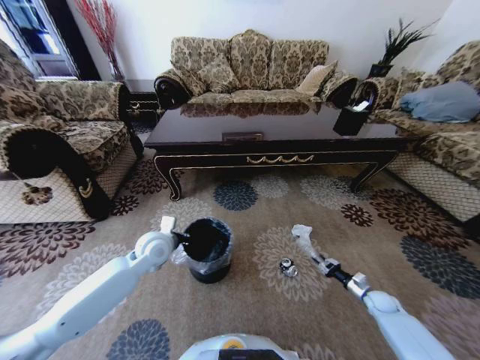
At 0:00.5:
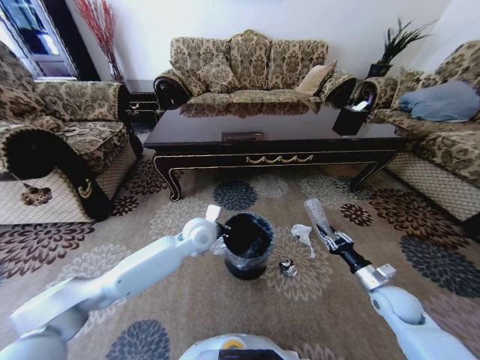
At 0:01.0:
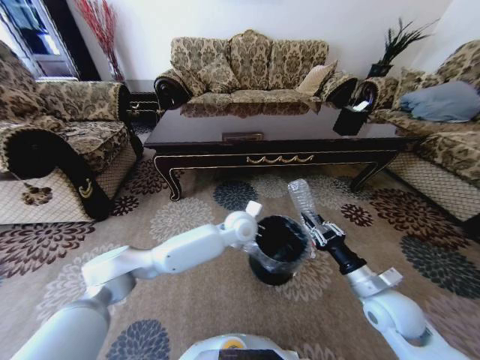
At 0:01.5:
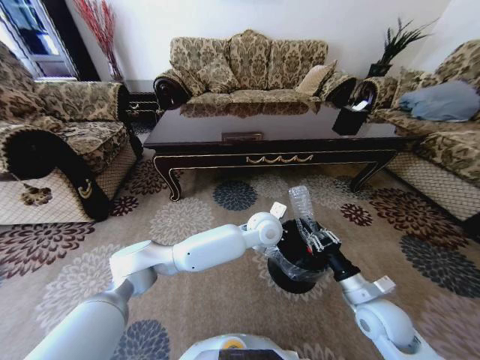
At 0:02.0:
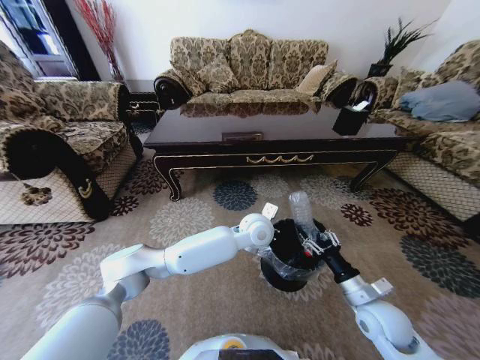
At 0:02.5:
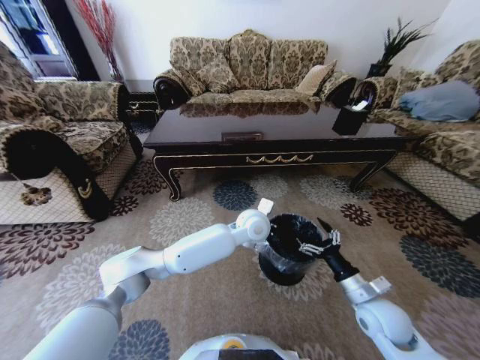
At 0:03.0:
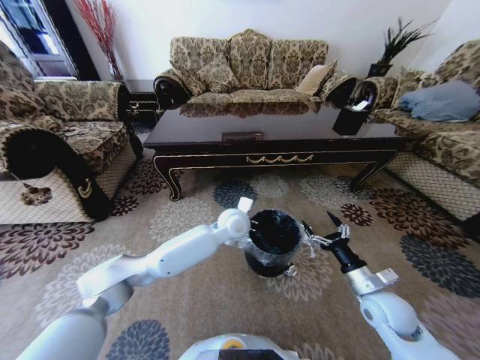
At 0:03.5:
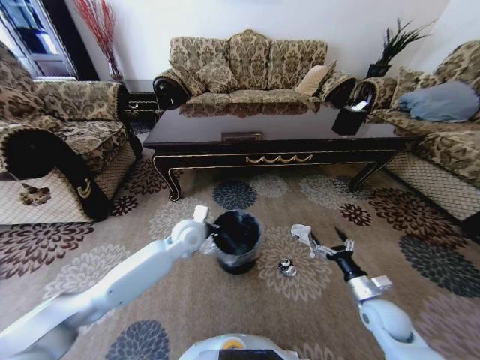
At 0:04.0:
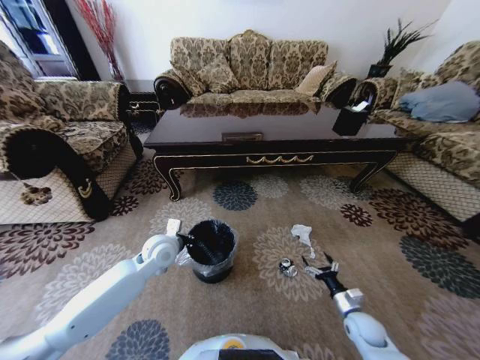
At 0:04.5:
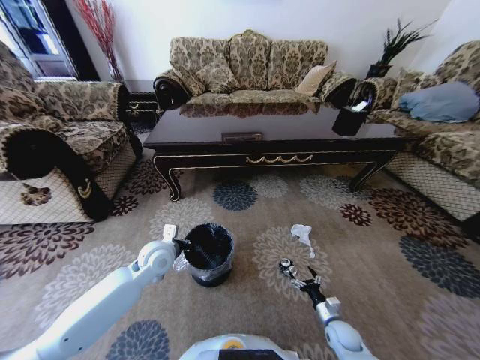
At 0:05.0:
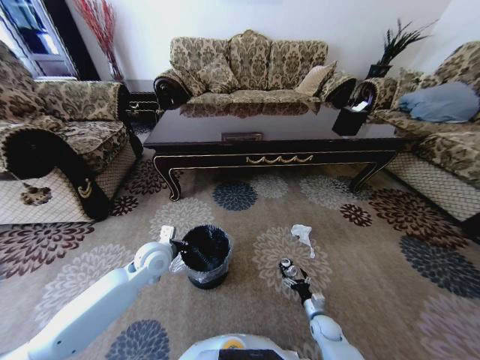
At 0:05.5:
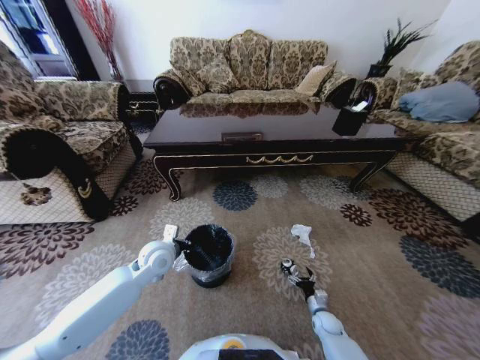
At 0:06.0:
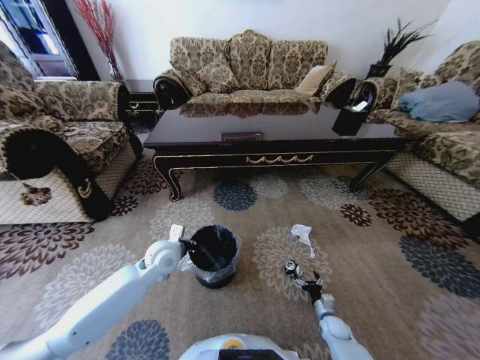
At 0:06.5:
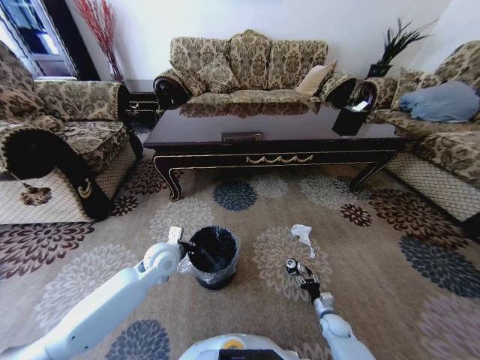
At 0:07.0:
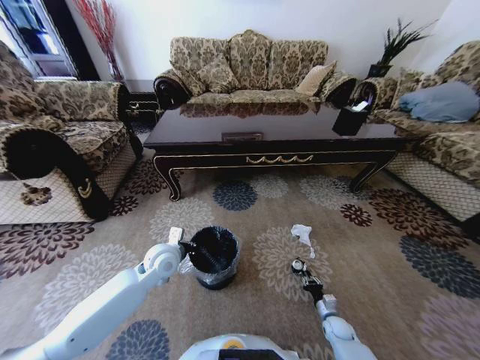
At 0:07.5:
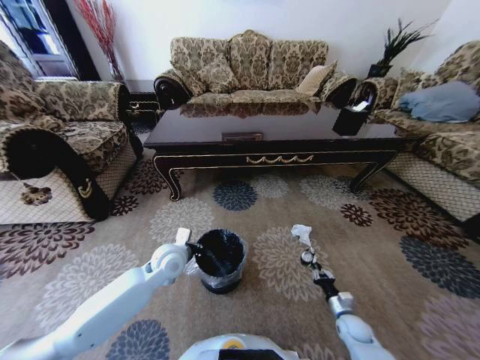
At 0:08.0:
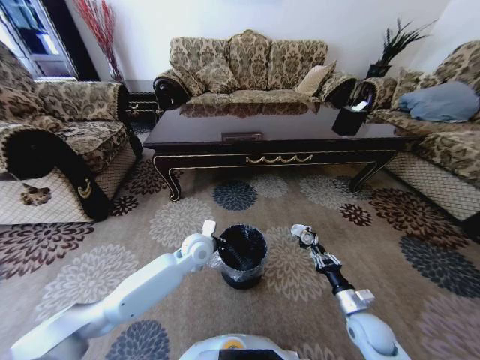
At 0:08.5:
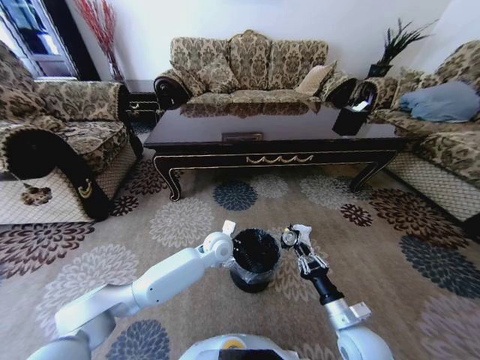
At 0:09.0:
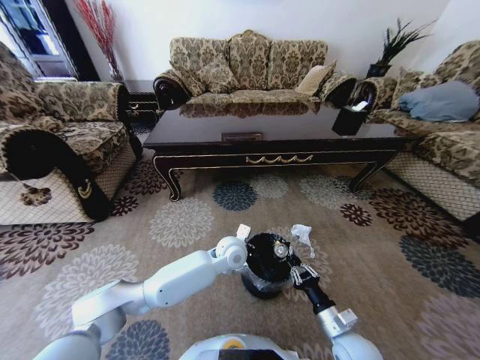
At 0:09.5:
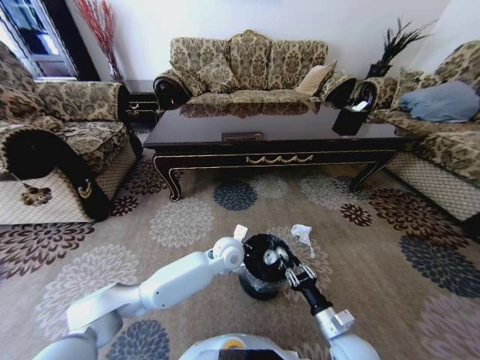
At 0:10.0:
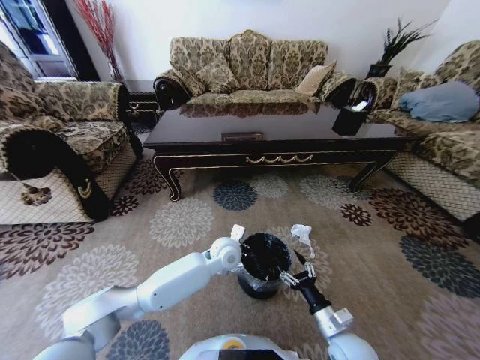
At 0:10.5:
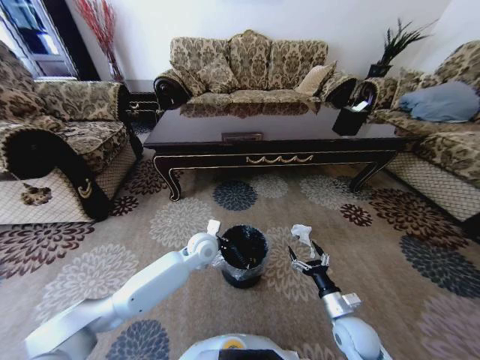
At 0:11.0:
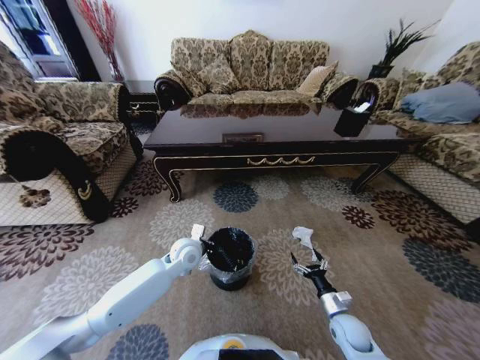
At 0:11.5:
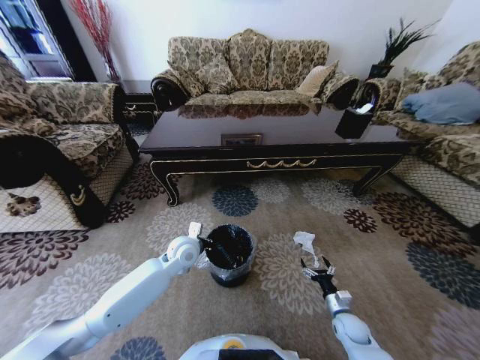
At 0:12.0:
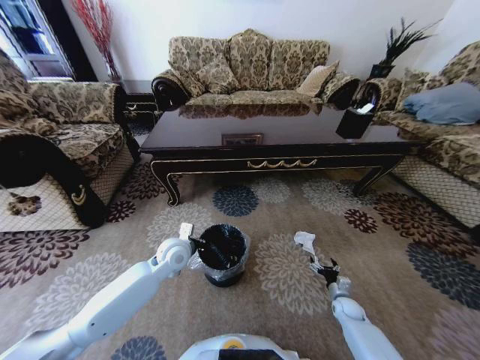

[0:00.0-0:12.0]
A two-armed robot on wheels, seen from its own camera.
Task of the whole recording: Move to the front of the table and pick up the trash from the floor, then place it into the trash bin.
0:00.0 to 0:02.0: The right gripper is displaced upward, to the left and backward by roughly 30 cm, and opens, while the left gripper travels to the right by roughly 30 cm.
0:02.0 to 0:04.0: The right gripper shifts about 15 cm downward, and opens its fingers, while the left gripper heads to the left, covering some 25 cm.
0:04.0 to 0:06.0: The right gripper goes some 15 cm downward.
0:06.0 to 0:08.0: The right gripper travels upward by some 20 cm, and closes its fingers. Meanwhile the left gripper travels to the right by approximately 10 cm.
0:08.0 to 0:10.0: The left gripper moves to the right, roughly 10 cm. The right gripper is displaced to the left by approximately 10 cm, and opens up.
0:10.0 to 0:12.0: The right gripper travels downward, to the right and forward by approximately 25 cm; the left gripper travels to the left by approximately 15 cm.

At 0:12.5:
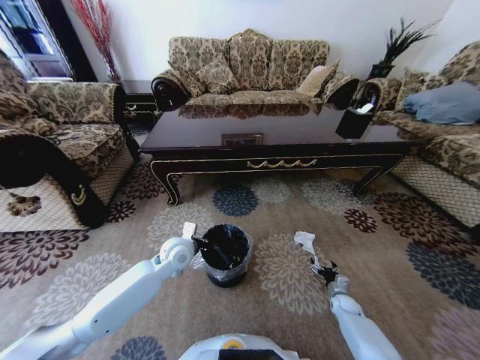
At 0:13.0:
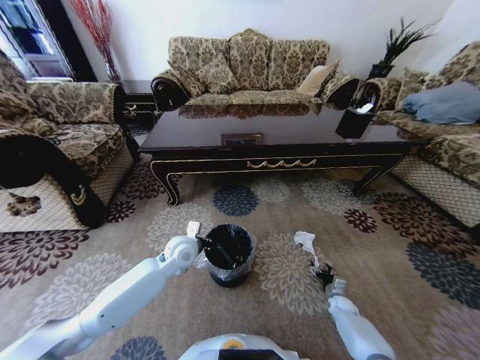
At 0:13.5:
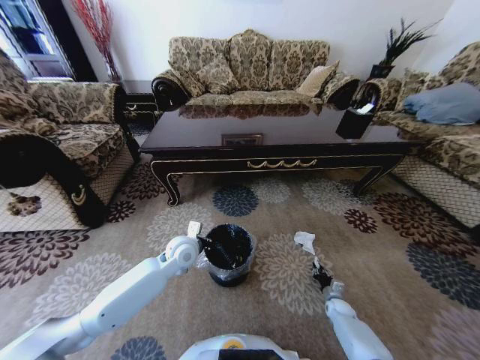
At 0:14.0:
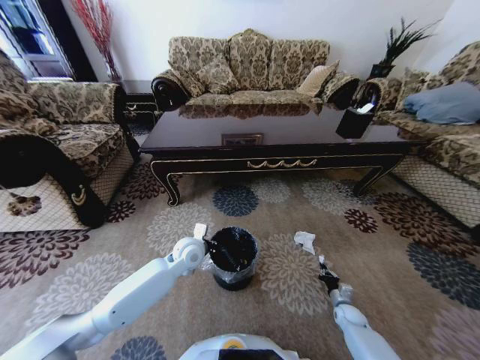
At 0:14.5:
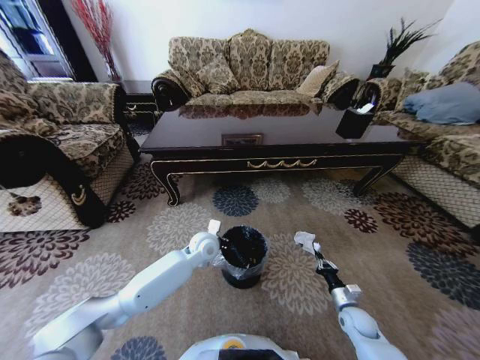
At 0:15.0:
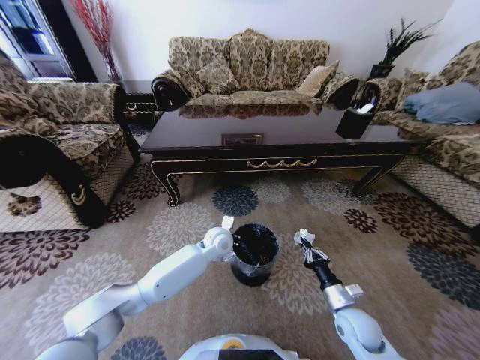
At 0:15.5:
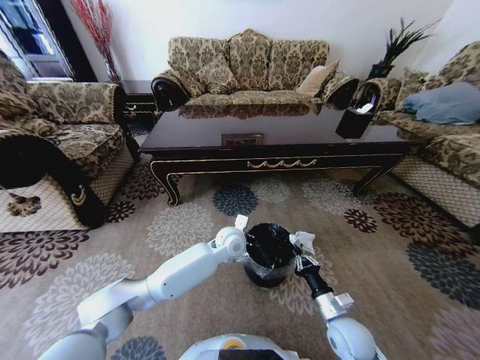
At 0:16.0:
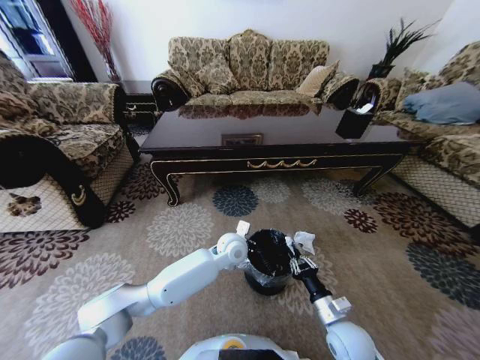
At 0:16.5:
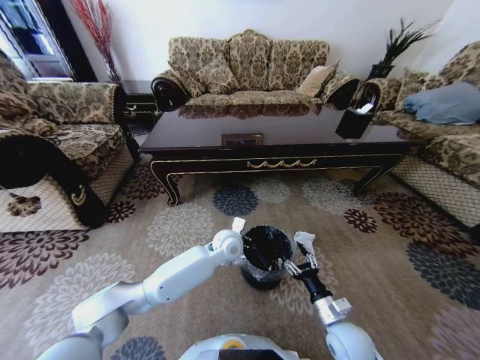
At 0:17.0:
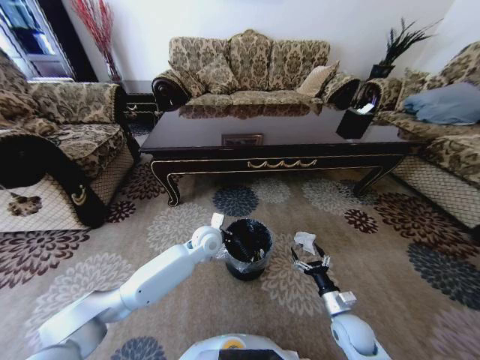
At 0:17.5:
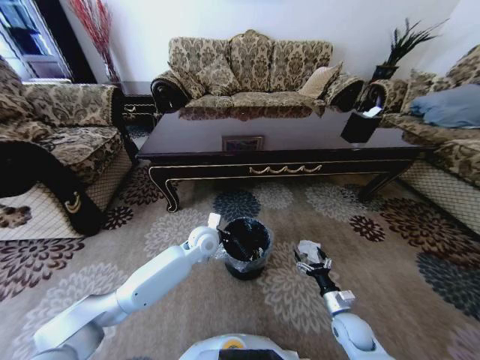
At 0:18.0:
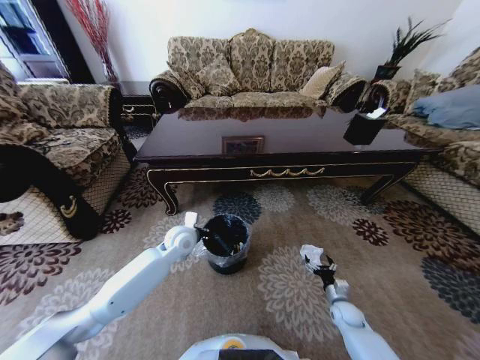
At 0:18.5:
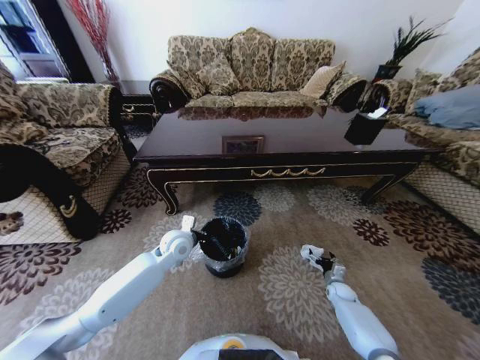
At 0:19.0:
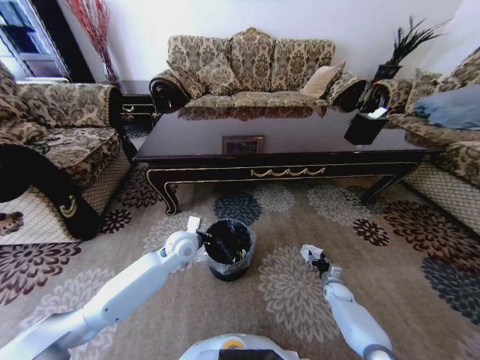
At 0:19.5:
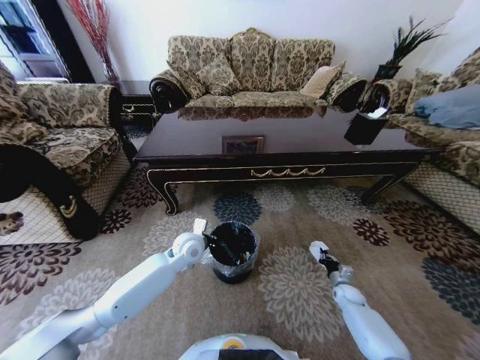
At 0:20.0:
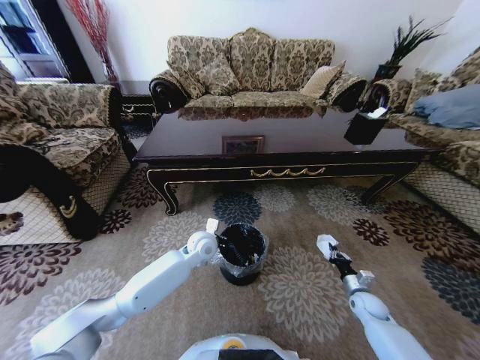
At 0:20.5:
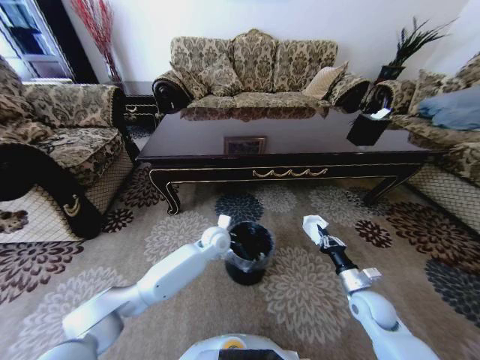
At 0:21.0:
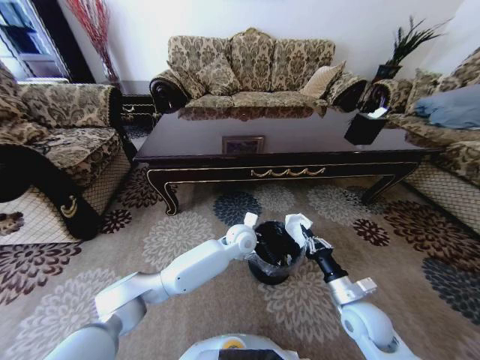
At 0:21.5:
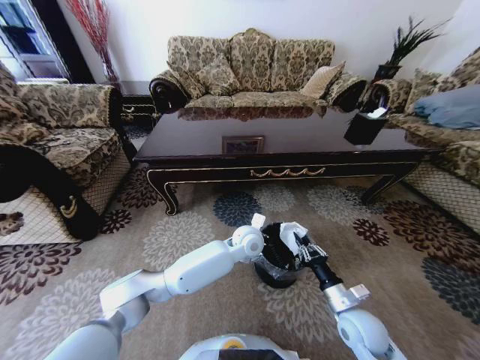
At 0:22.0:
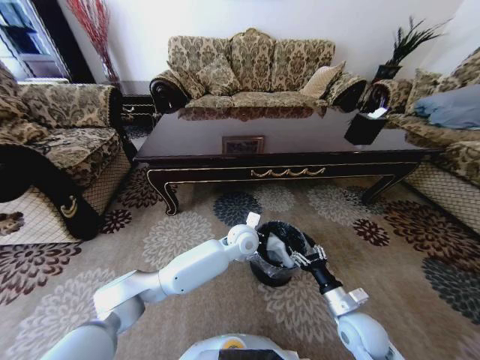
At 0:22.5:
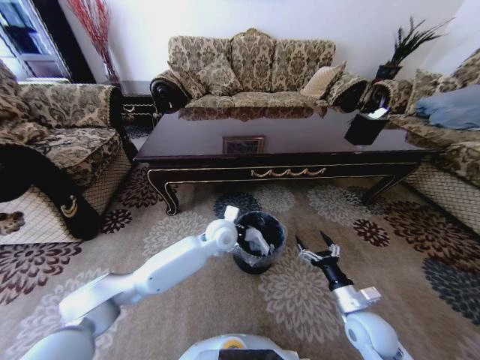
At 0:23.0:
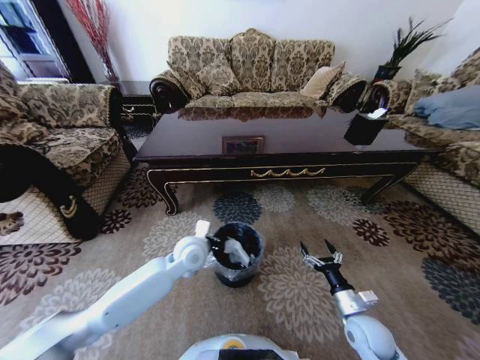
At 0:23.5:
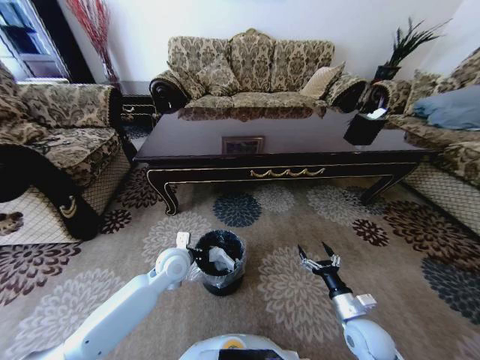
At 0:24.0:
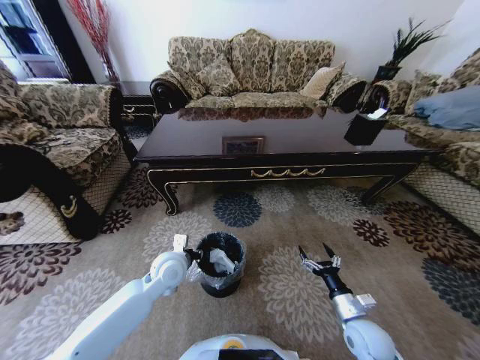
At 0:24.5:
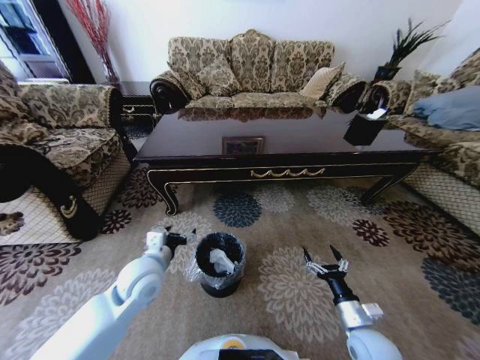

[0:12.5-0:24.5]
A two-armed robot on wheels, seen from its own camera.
Task of the whole recording: Move to the front of the table and pick up the trash from the floor, then place it into the trash bin.
0:12.5 to 0:14.5: The left gripper shifts approximately 10 cm to the right, while the right gripper shifts roughly 10 cm upward and backward, and closes up.
0:14.5 to 0:16.5: The right gripper travels to the left, upward and backward by some 15 cm, and opens up; the left gripper travels to the right by about 5 cm.
0:16.5 to 0:18.5: The right gripper goes some 30 cm downward, forward and to the right, while the left gripper travels to the left by some 15 cm.
0:18.5 to 0:20.5: The right gripper goes about 20 cm upward and backward, and closes its fingers. Meanwhile the left gripper goes some 10 cm to the right.
0:20.5 to 0:22.5: The left gripper is displaced upward by approximately 5 cm, and travels to the right and back again, some 10 cm each way; the right gripper goes about 10 cm backward and to the left, and opens.
0:22.5 to 0:24.5: The left gripper travels to the left and backward by approximately 25 cm, and opens up.

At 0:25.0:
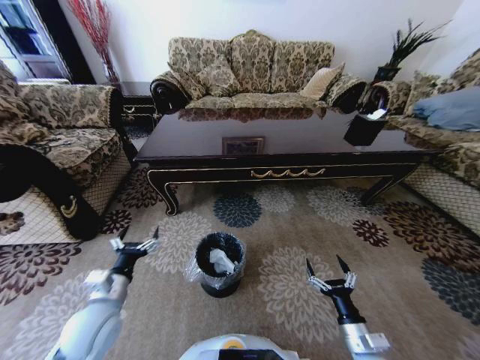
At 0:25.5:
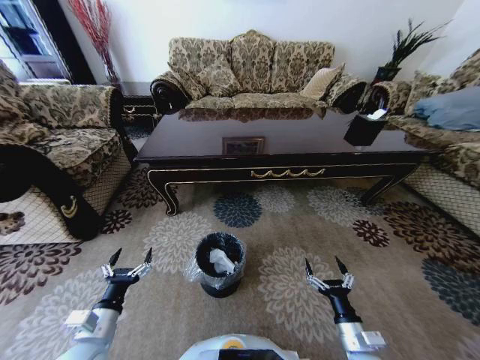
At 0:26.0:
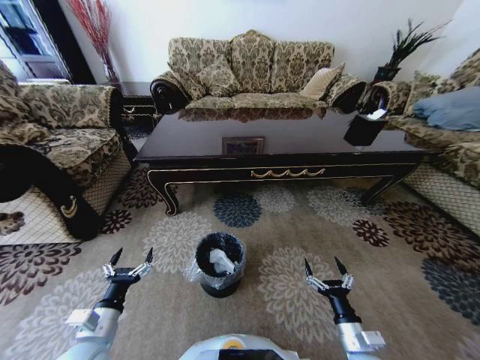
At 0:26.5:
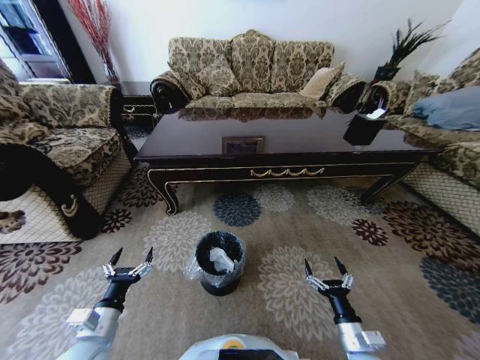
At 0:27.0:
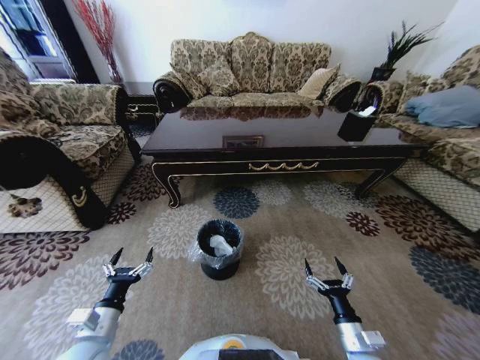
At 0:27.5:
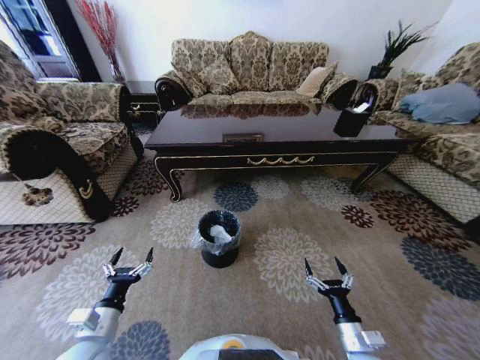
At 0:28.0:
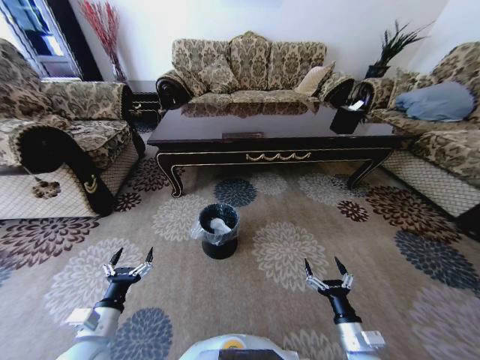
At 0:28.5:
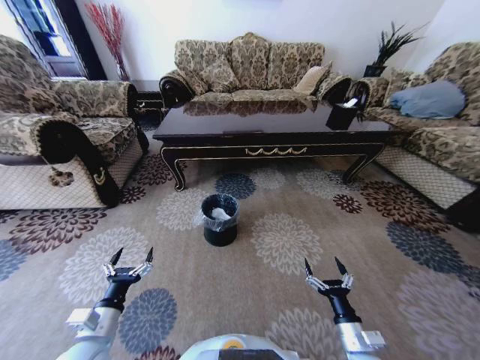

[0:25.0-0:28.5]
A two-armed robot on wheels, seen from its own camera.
Task of the whole recording: Move to the front of the table and pick up the trash from the floor, then place it into the trash bin.
0:25.0 to 0:27.0: The left gripper moves backward, roughly 5 cm.
